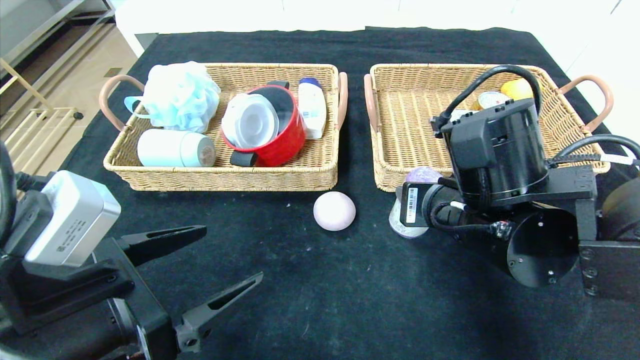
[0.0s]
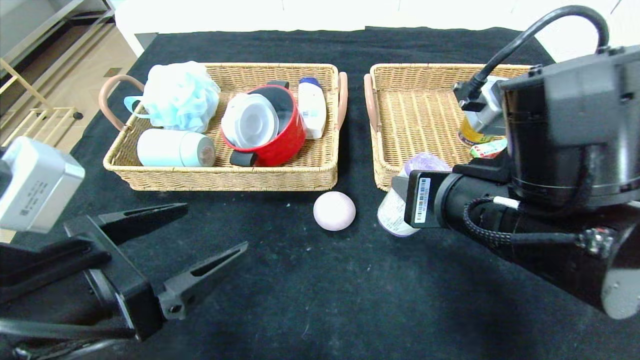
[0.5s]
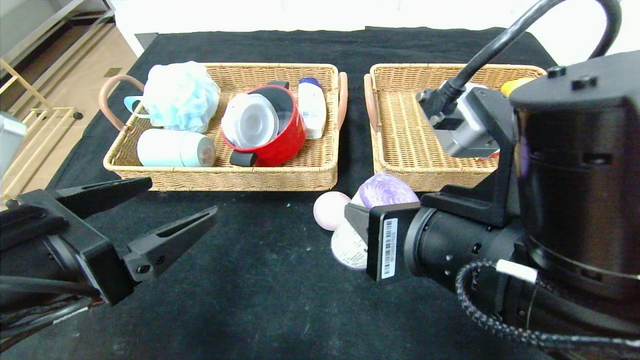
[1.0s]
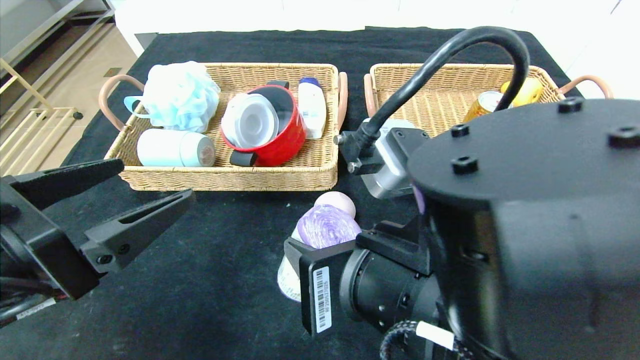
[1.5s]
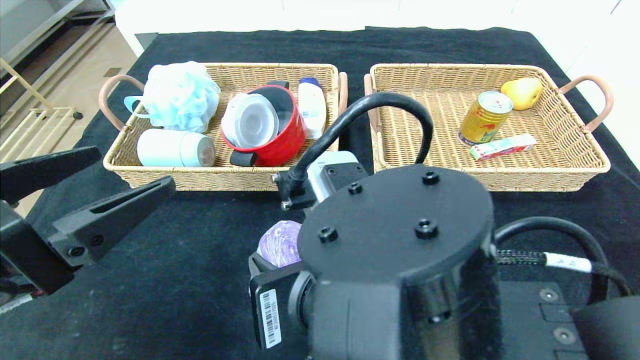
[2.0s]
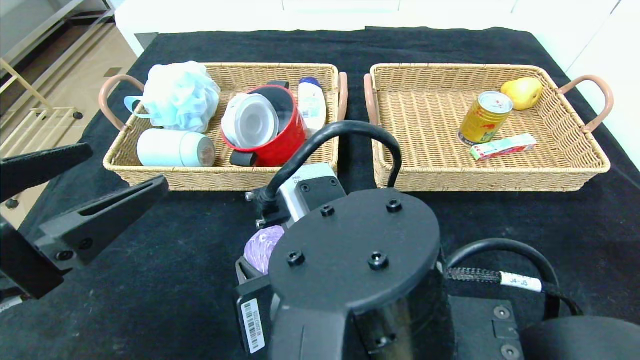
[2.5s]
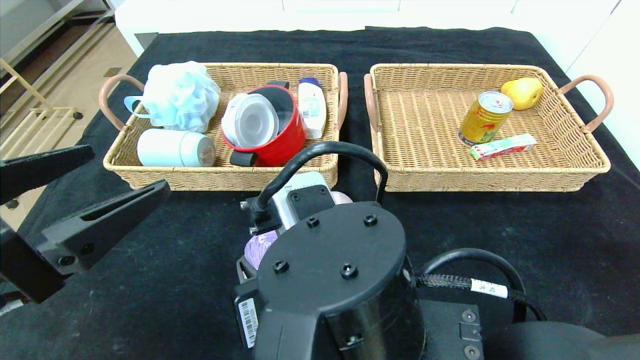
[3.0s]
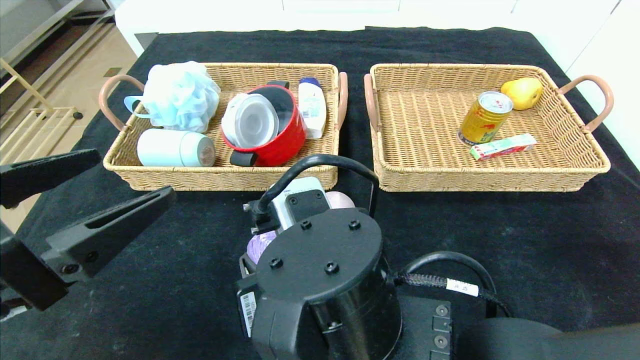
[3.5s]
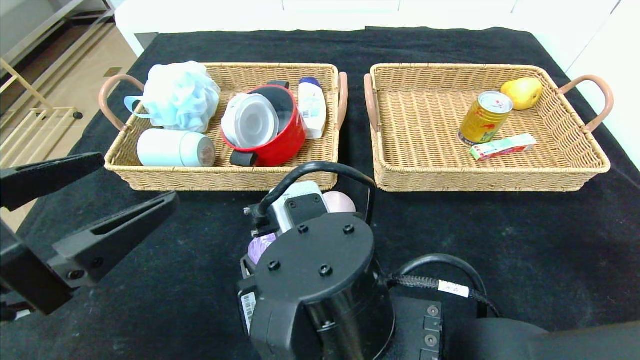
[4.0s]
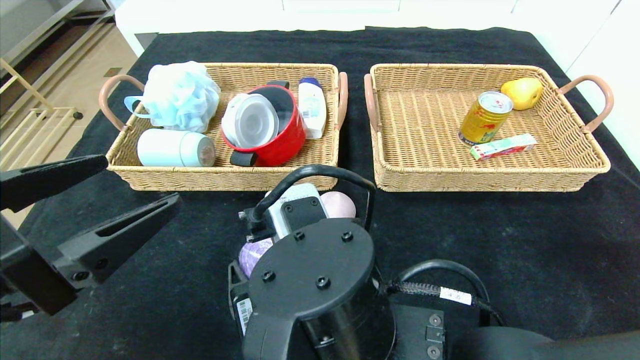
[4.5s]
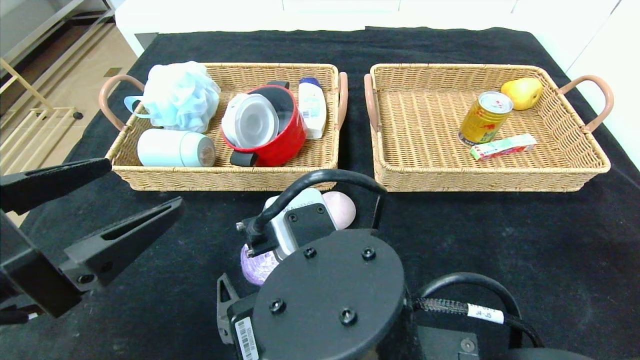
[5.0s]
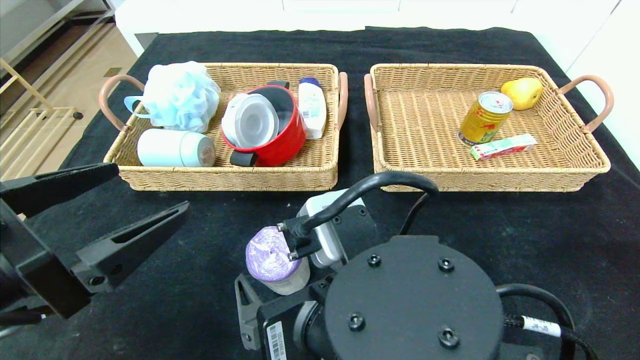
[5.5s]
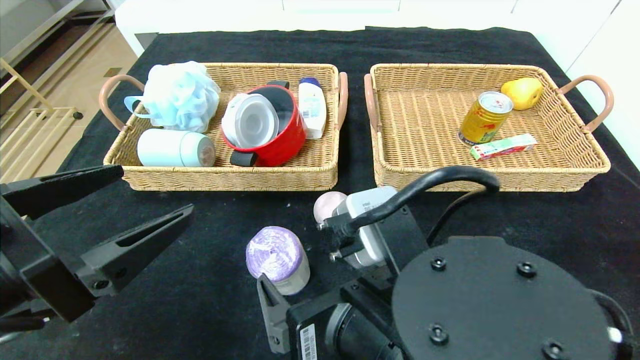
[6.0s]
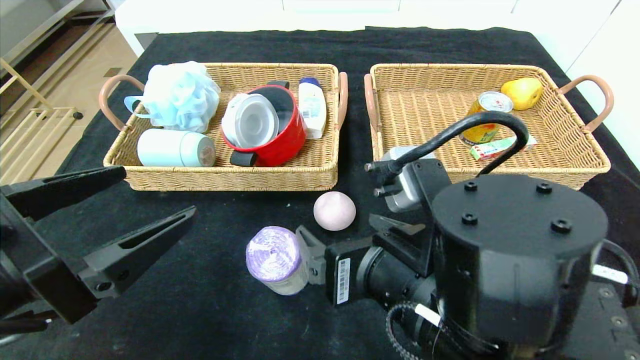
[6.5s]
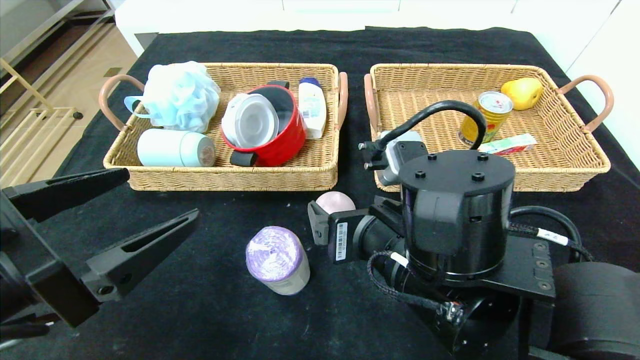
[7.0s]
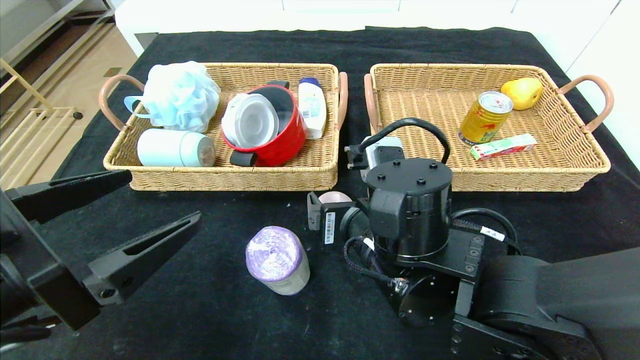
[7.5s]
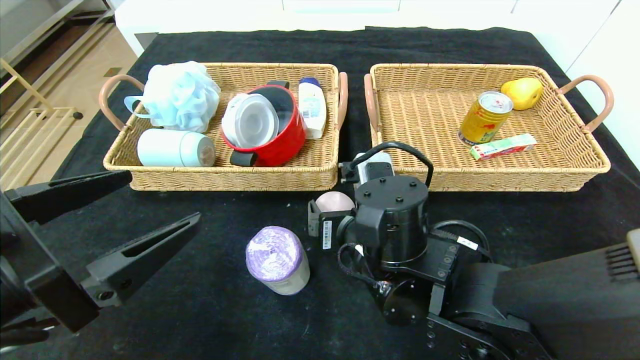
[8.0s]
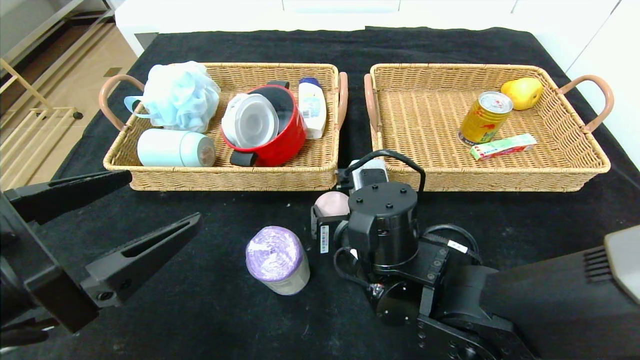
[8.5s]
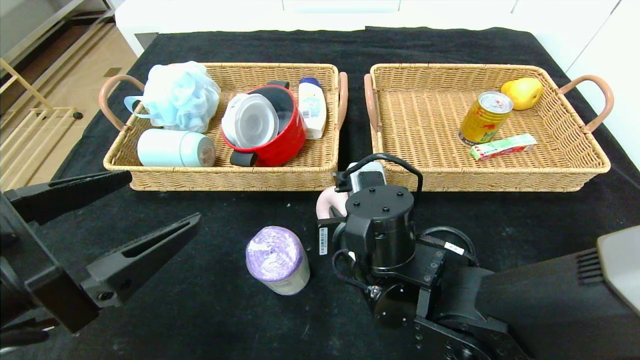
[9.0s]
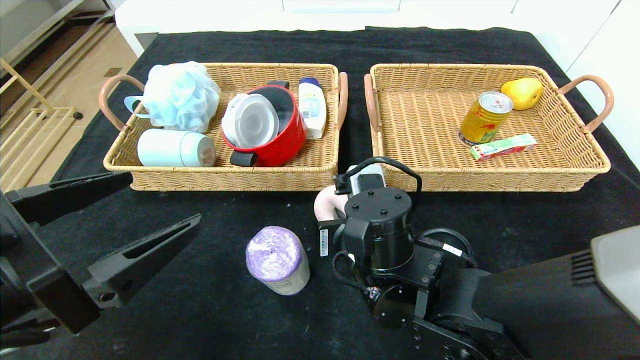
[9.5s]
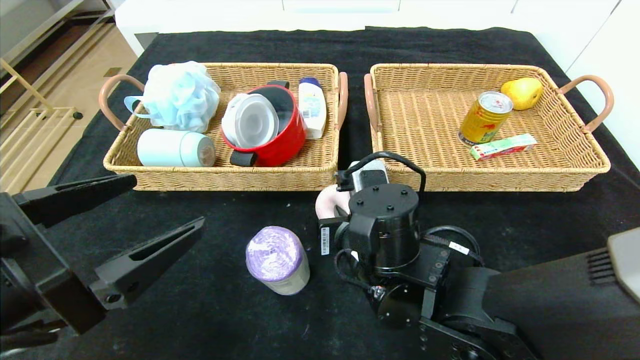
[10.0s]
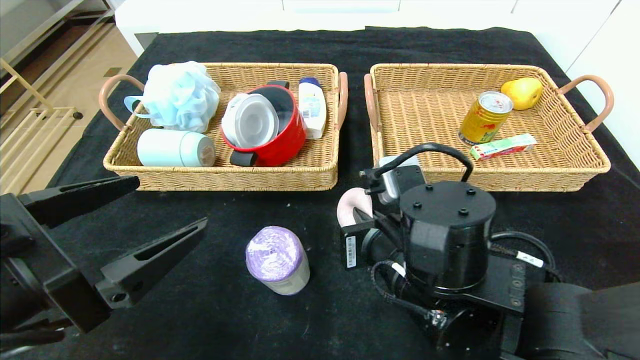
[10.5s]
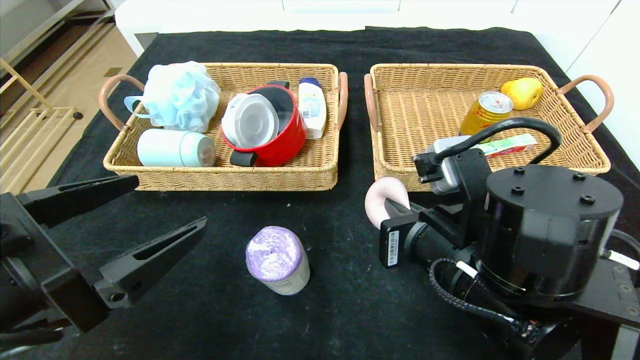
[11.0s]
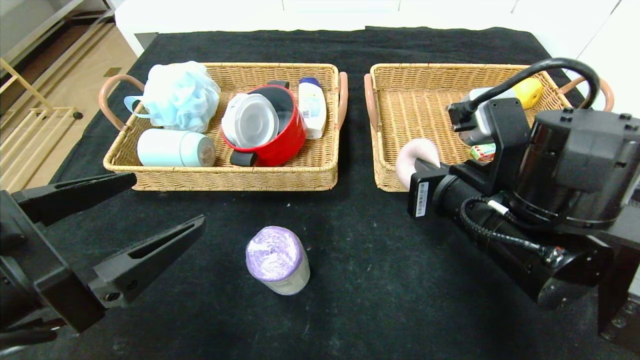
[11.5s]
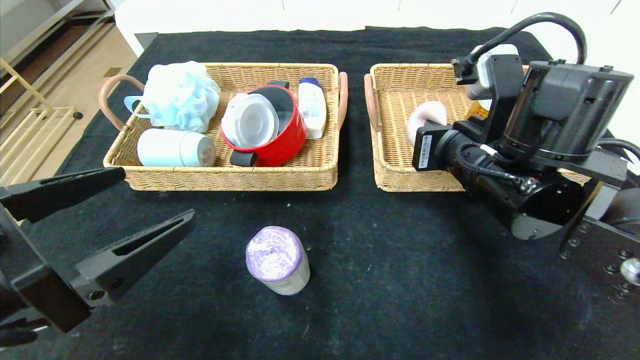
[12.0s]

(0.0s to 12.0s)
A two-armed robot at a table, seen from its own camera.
Step, 0.0s - 5.0s: Place the purple garbage bag in the center of the table.
0.0s - 2.0s: The right gripper moves to the left and backward, about 15 cm; the left gripper travels upward by roughly 5 cm.
2.0s - 4.0s: The right gripper ends up some 5 cm from where it was.
4.0s - 6.0s: The right gripper is displaced to the right by approximately 5 cm, and opens.
6.0s - 8.0s: The right gripper is displaced forward by some 10 cm.
8.0s - 10.0s: The right gripper closes its fingers.
10.0s - 12.0s: The right gripper moves to the right and upward, about 15 cm.

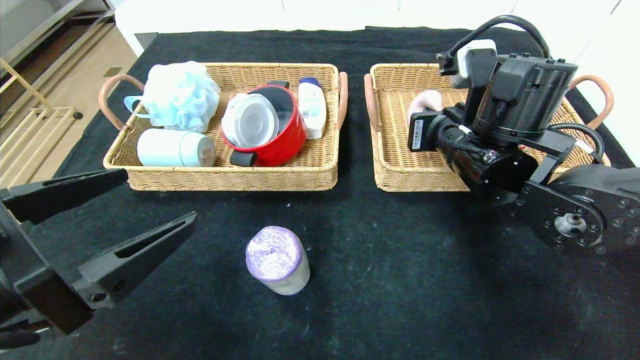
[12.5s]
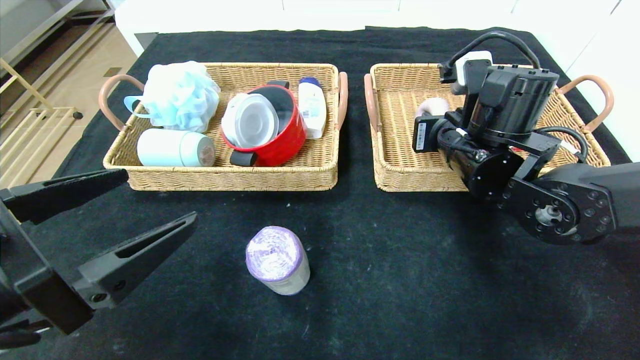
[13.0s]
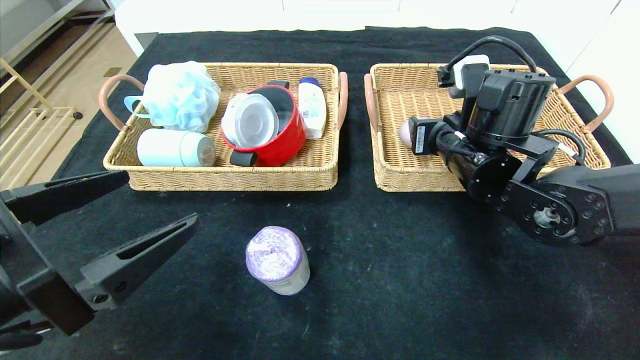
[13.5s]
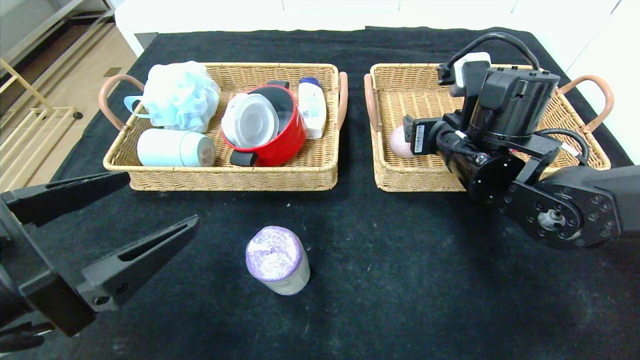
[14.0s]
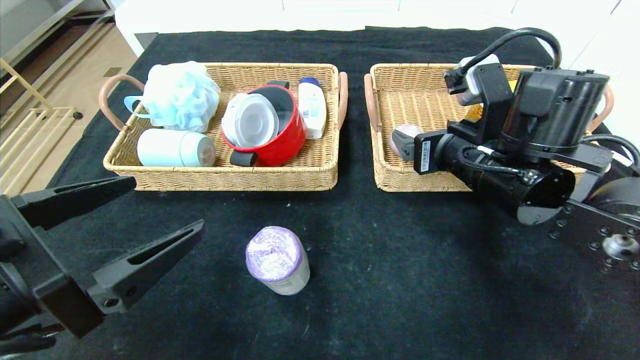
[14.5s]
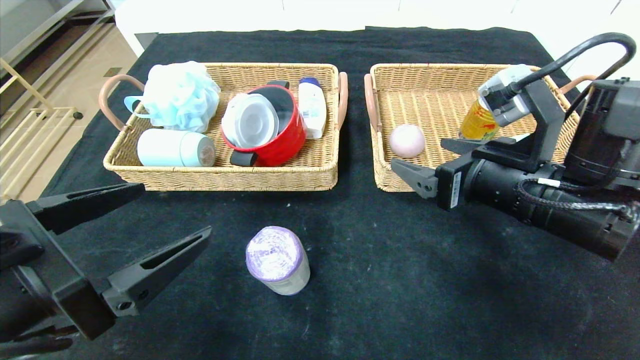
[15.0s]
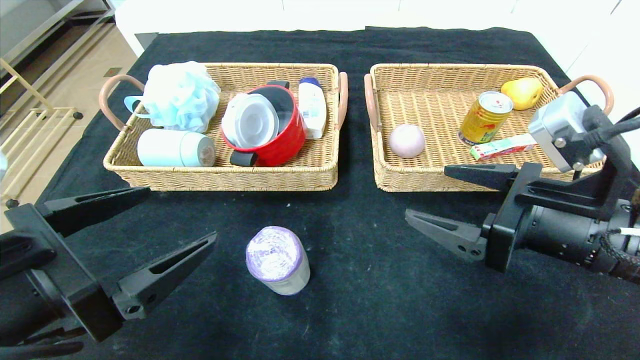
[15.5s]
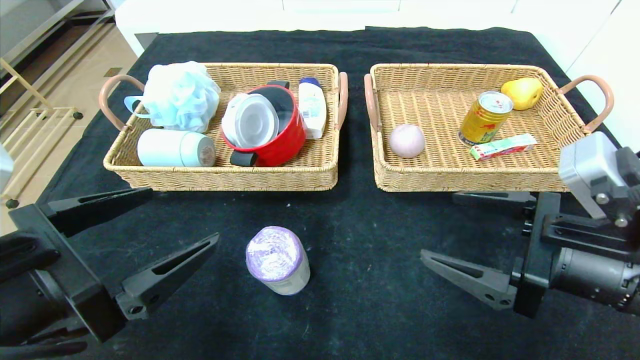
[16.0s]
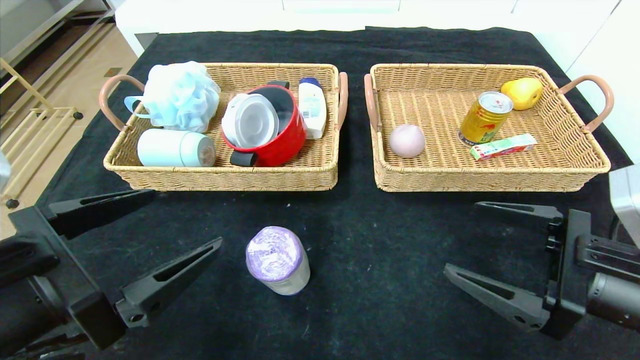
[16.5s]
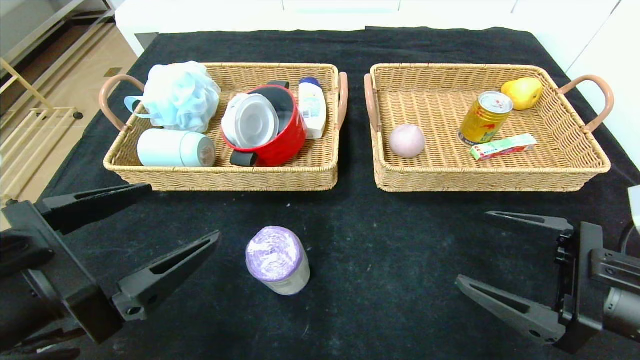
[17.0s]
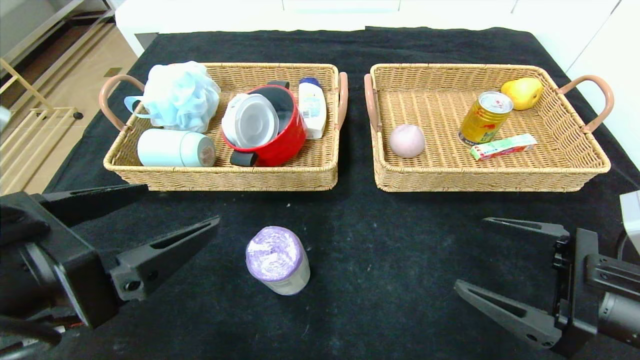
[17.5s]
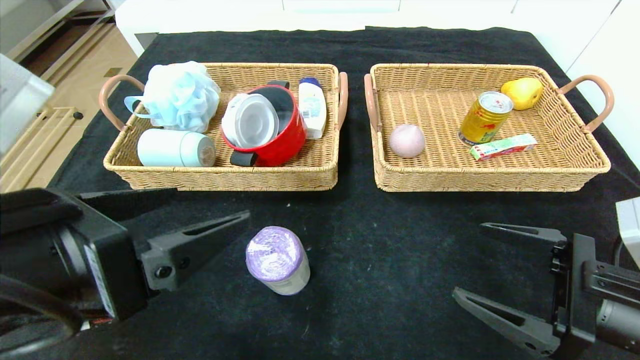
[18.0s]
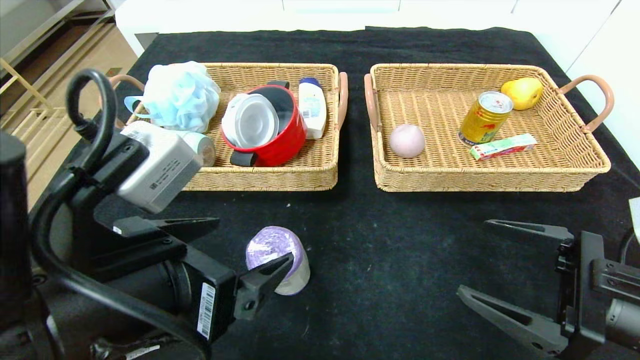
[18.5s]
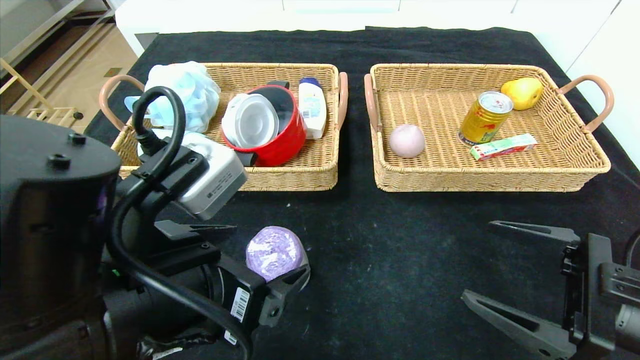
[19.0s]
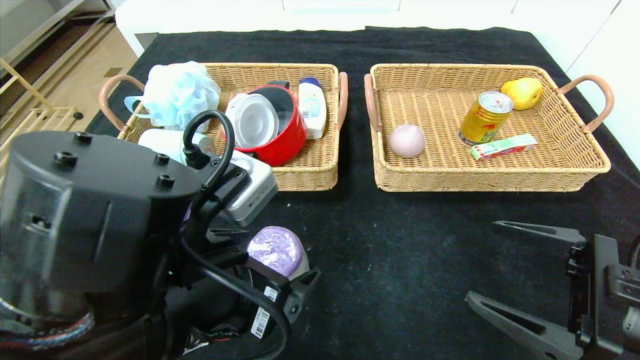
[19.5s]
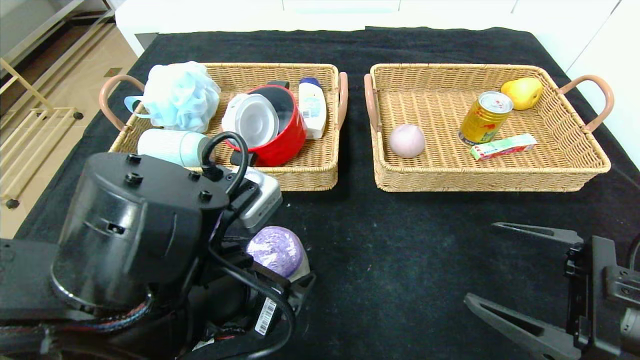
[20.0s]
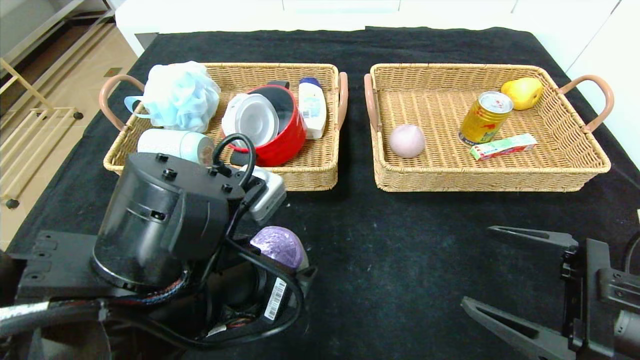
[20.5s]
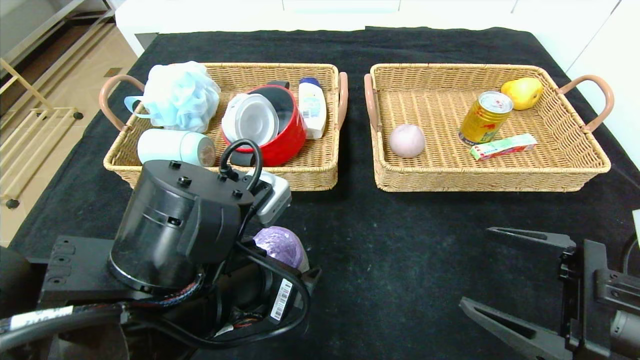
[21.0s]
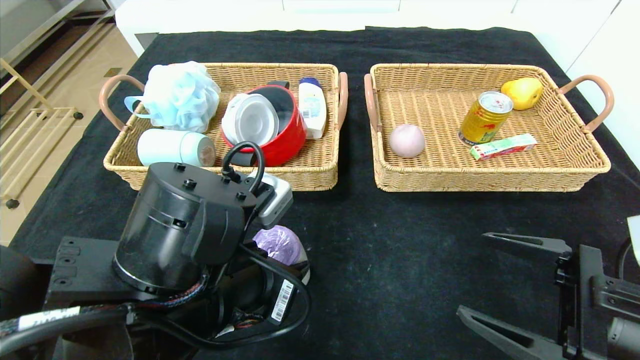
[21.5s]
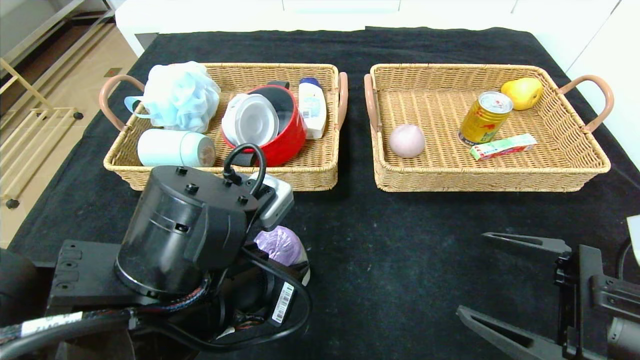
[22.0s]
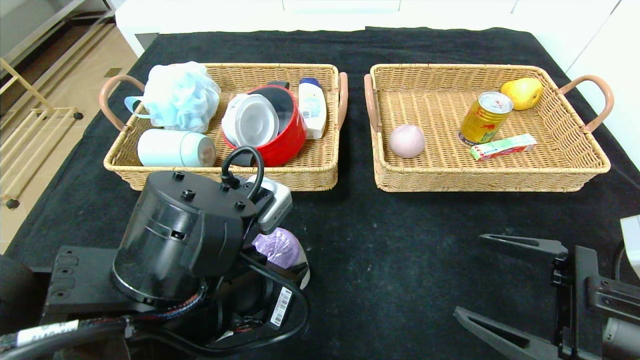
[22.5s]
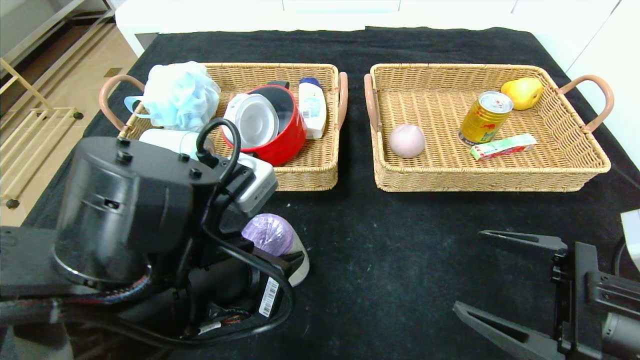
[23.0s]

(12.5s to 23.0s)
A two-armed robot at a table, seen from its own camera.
12.5s - 14.5s: The right gripper opens its fingers.
14.5s - 16.5s: The right gripper goes roughly 15 cm backward, to the right and downward.
16.5s - 19.0s: The left gripper travels to the right by some 10 cm.
19.0s - 21.0s: The left gripper shifts by roughly 5 cm.
21.0s - 23.0s: The left gripper closes its fingers.
